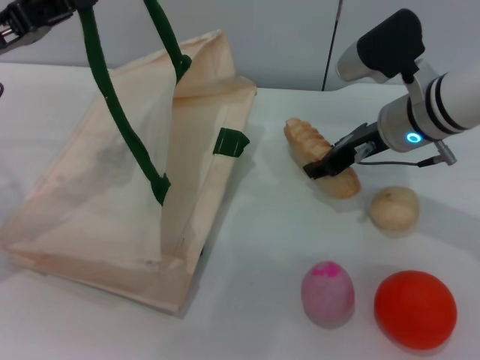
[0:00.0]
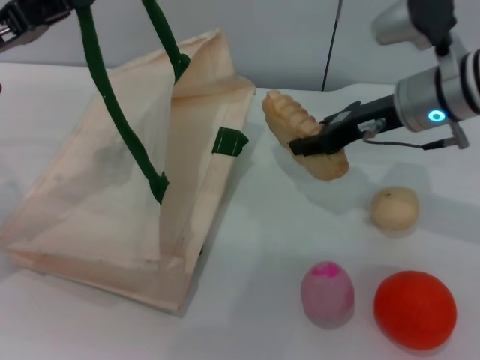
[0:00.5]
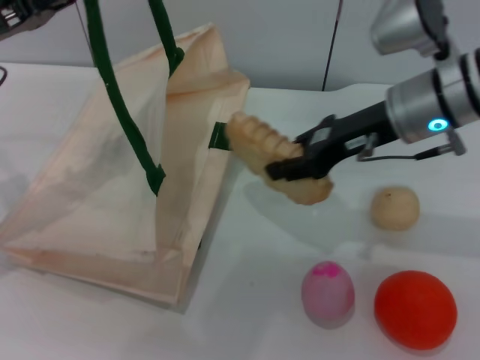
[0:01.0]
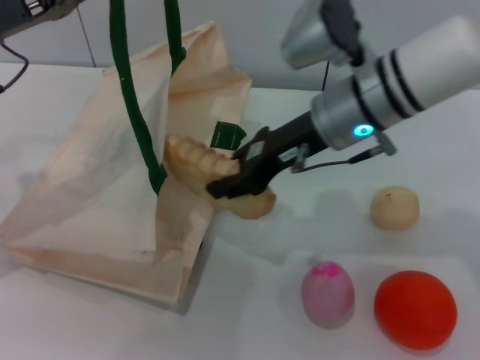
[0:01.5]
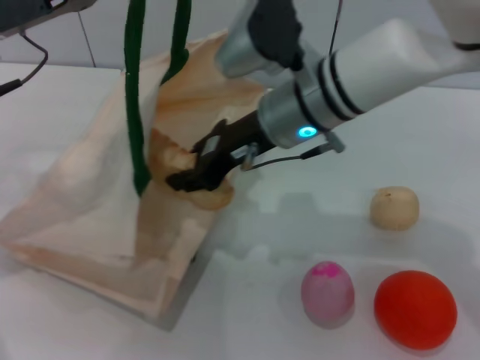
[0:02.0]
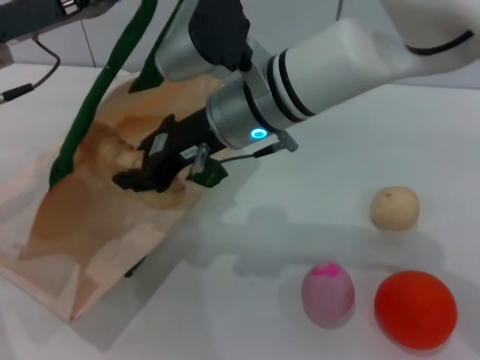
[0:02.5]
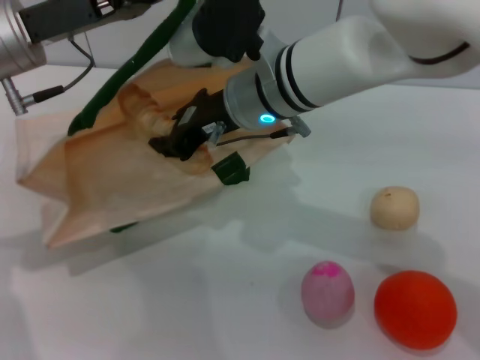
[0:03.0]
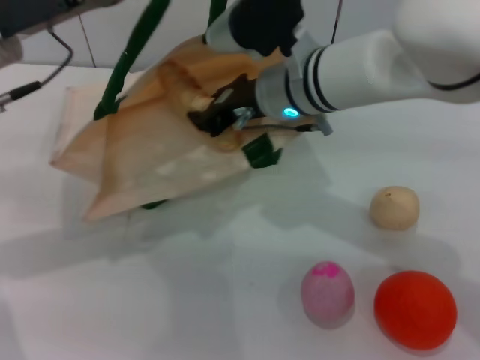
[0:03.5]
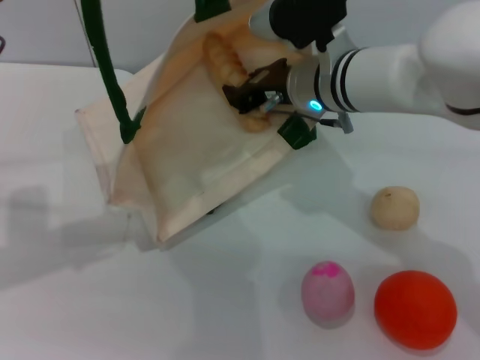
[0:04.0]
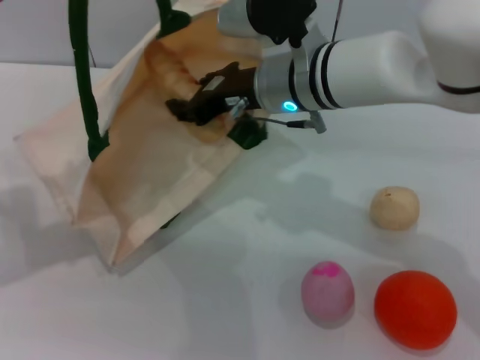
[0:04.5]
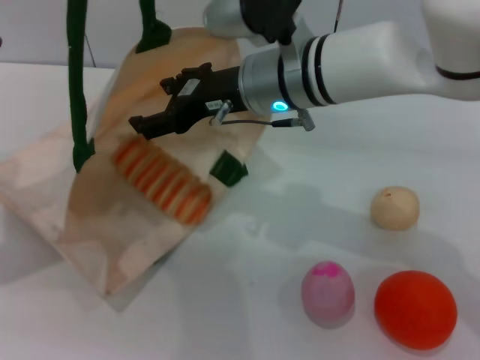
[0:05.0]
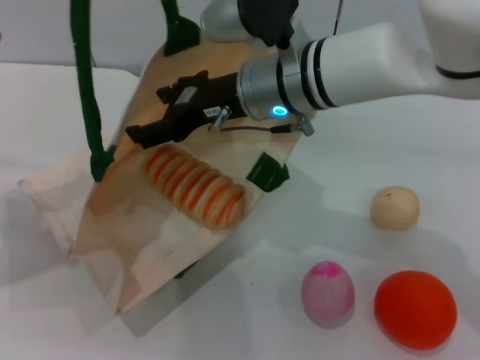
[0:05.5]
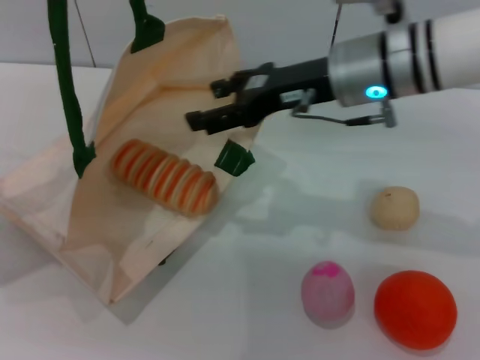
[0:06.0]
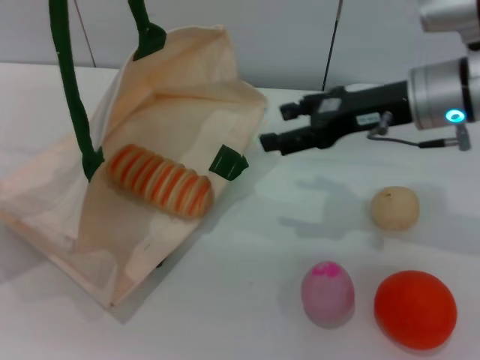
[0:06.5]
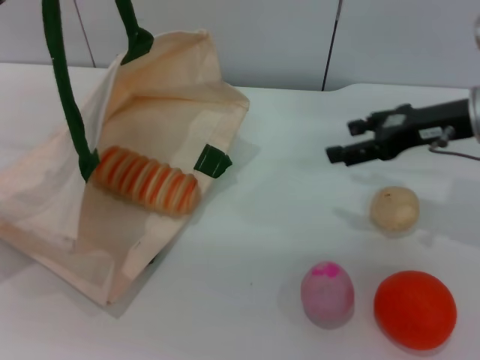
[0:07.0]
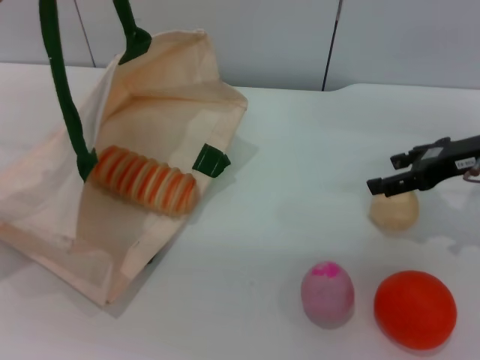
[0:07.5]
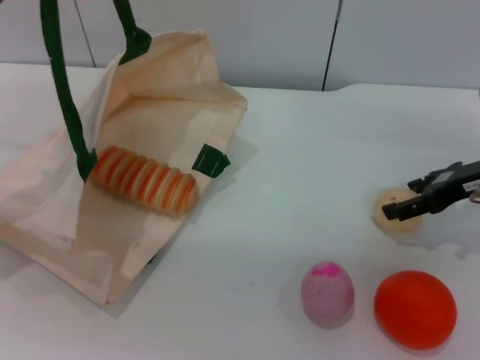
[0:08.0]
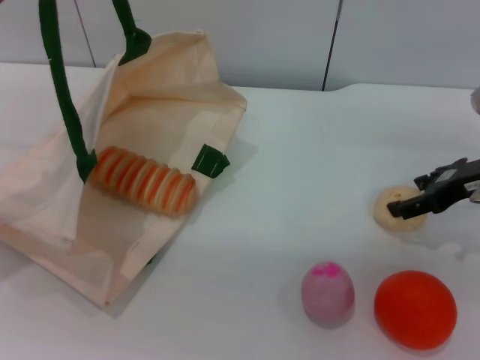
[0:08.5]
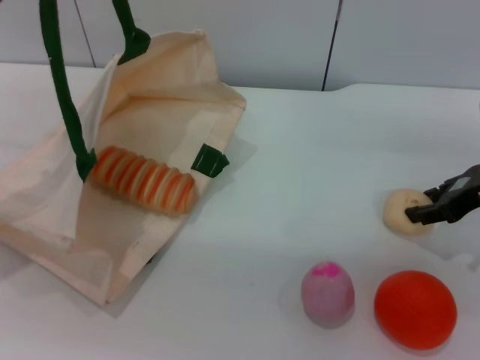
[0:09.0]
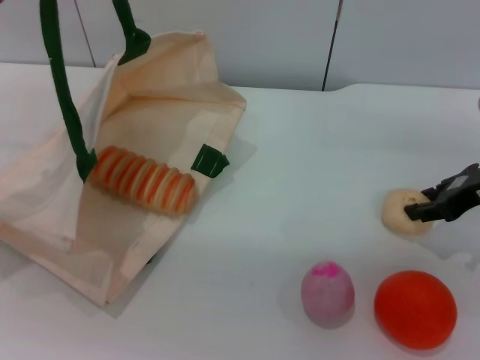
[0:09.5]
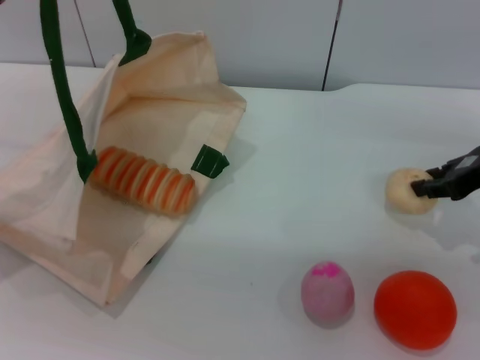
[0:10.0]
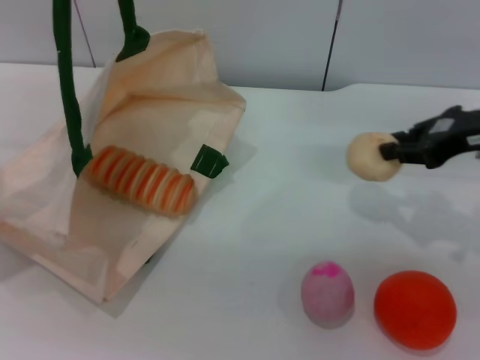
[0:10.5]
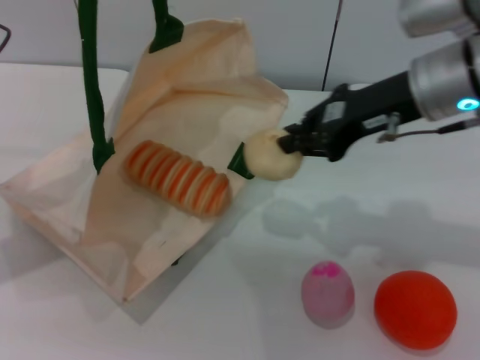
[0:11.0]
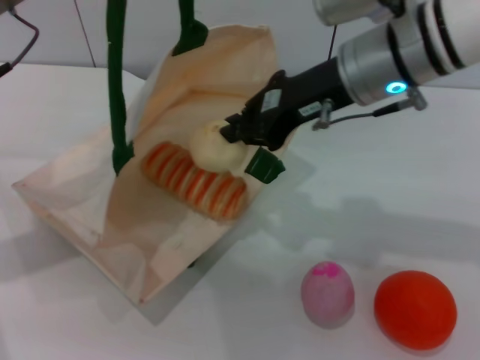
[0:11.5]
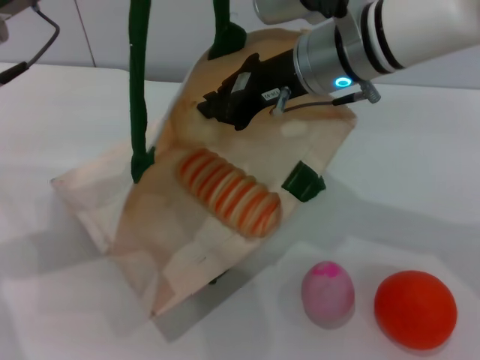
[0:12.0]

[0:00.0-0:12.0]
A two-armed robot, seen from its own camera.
Task of the whole recording: pick up the bread and egg yolk pastry from the table and place it in the white handbag.
Step, 0:00.5 to 0:05.0: Place the bread into the woven bag with the right gripper.
Step, 0:05.5 to 0:10.0: Pick up the egg yolk pastry with the right gripper.
0:00.0 to 0:02.0: The left gripper shifts by roughly 5 cm. The right gripper shifts approximately 10 cm to the left.
0:04.0 to 0:06.0: The right gripper shifts by approximately 5 cm, and opens.
0:06.0 to 0:08.0: The right gripper moves to the right and downward, roughly 20 cm.
0:08.0 to 0:10.0: The right gripper closes.
0:10.0 to 0:12.0: The right gripper travels to the left by about 20 cm; the left gripper heads to the right, covering roughly 5 cm.

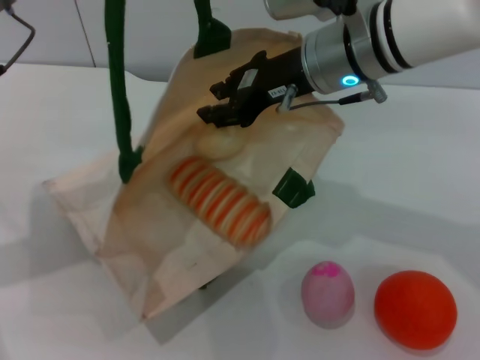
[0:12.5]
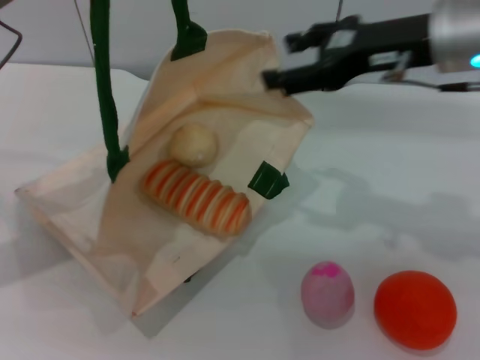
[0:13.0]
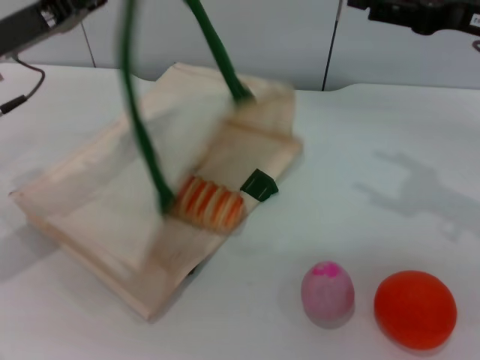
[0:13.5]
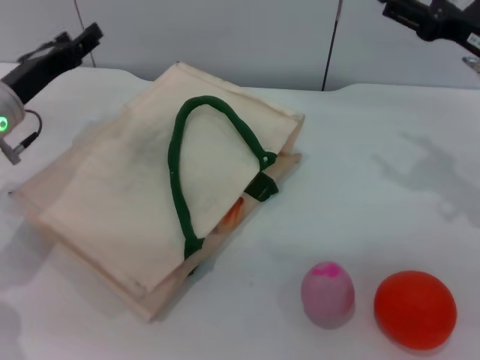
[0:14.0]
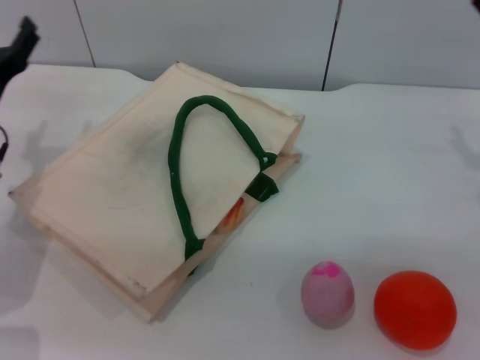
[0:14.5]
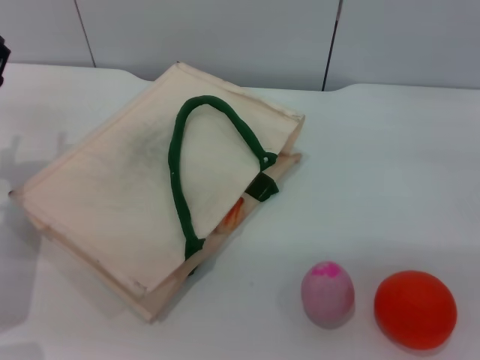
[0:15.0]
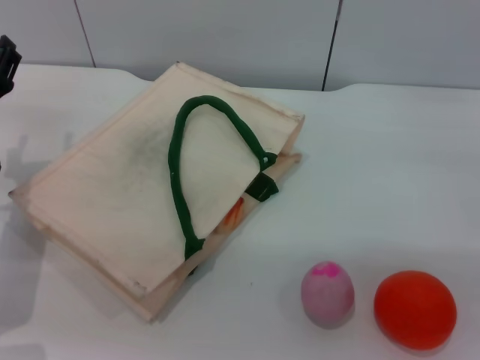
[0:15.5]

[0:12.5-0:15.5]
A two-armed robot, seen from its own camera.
Task of the whole recording: pick up the bread and egg yolk pastry from the table and place it in the white handbag.
Step, 0:13.0 to 0:13.5: Lower the woven bag with the left gripper to close it.
0:12.5 to 0:14.0: The right gripper goes some 20 cm to the right, and opens up. Meanwhile the left gripper goes about 10 cm downward, and opens.
0:14.0 to 0:15.5: The right gripper moves downward and to the right, some 10 cm; the left gripper is displaced backward by approximately 5 cm.
